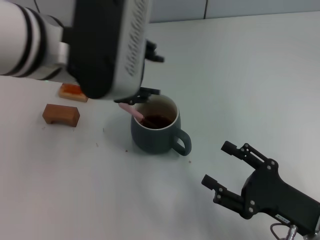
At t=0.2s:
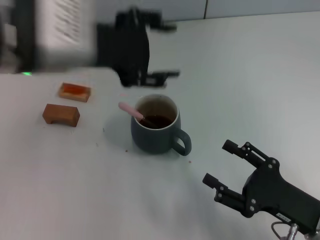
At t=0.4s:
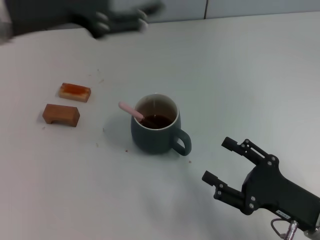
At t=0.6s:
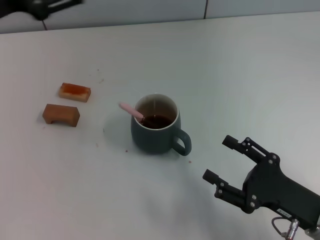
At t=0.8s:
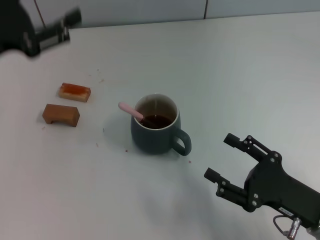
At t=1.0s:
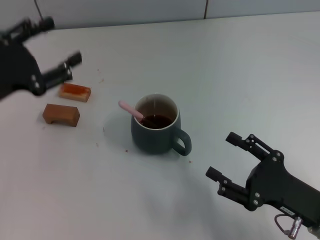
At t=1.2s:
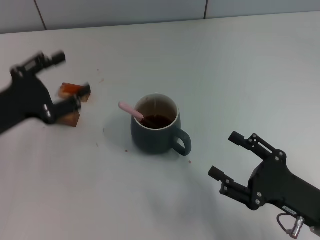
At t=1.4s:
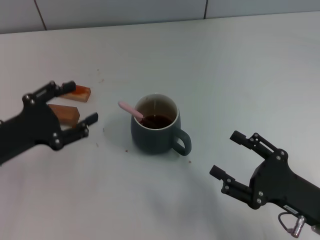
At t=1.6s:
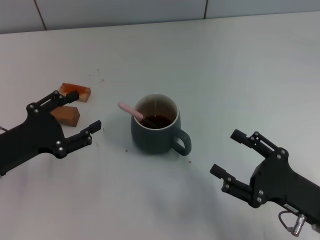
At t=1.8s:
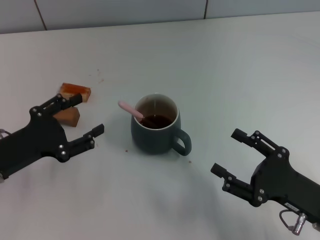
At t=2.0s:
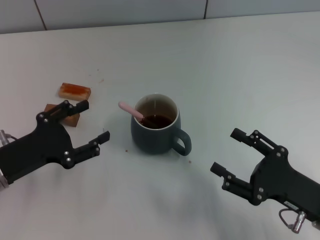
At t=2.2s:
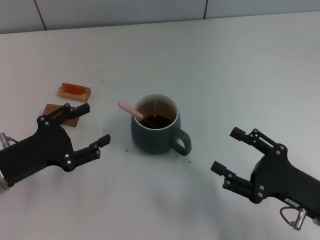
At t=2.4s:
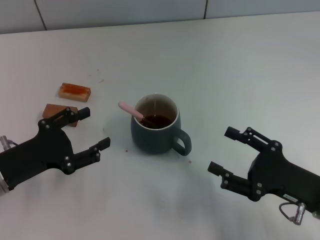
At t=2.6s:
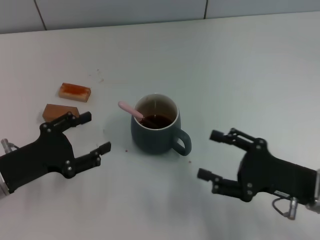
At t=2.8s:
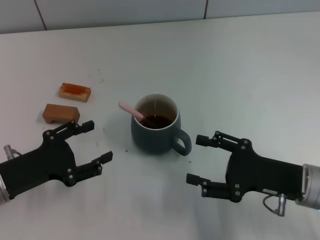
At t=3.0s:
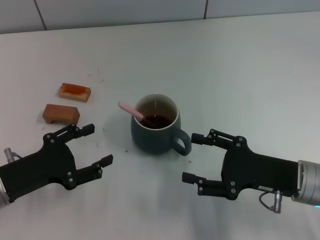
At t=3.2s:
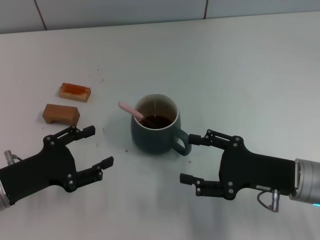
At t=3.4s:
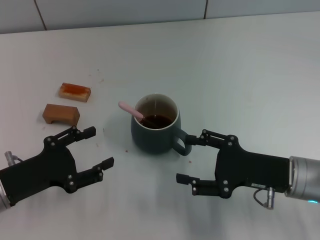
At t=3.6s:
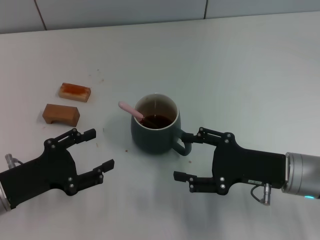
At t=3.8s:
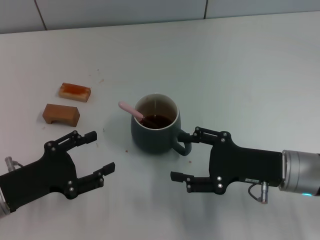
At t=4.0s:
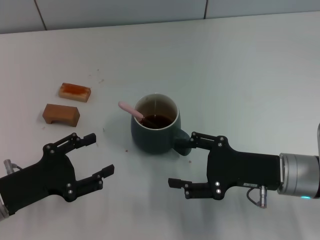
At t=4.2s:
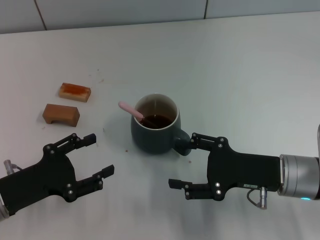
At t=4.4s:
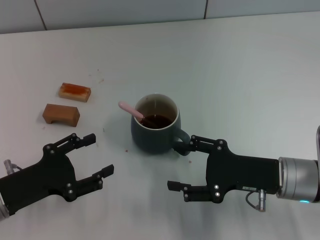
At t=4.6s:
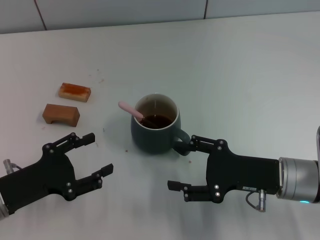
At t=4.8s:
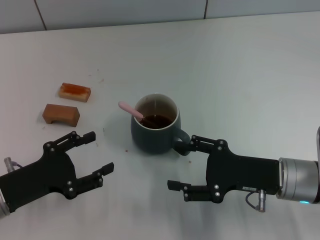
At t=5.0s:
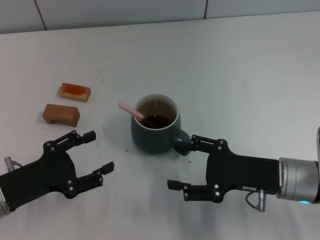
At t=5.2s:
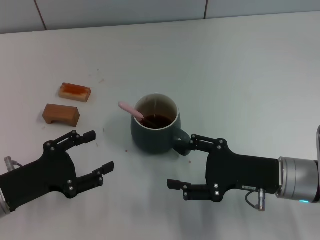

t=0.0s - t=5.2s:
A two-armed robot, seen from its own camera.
Task of the whole recording: Move the grey cup to the center, lift the pink spoon, stir it three times in the cup, and put the spoon into the cup.
t=0.0s - t=1.8s: The left gripper heads downward and to the left, covering roughly 25 cm, and opens its fingers.
t=1.8s - t=3.4s: The right gripper shifts approximately 5 cm forward.
t=3.4s - t=5.2s: Both grippers stay put.
